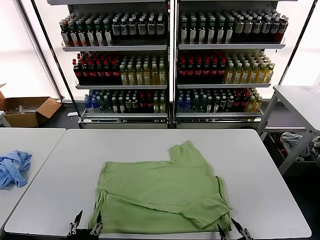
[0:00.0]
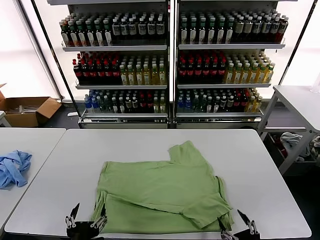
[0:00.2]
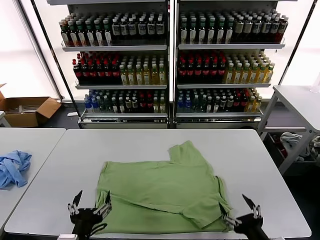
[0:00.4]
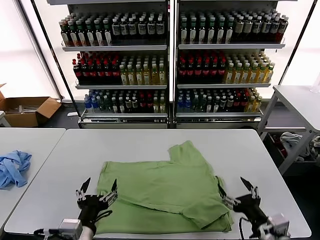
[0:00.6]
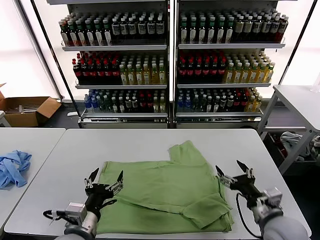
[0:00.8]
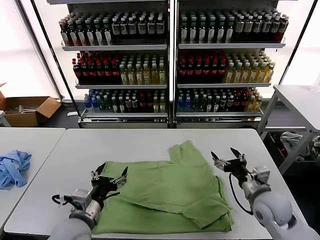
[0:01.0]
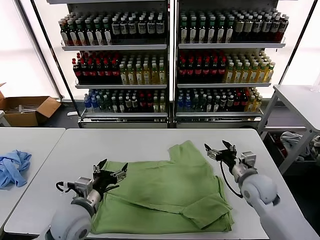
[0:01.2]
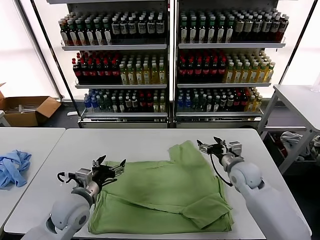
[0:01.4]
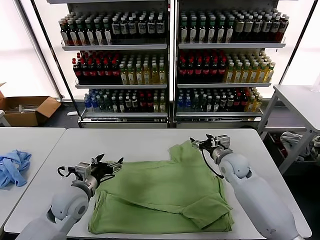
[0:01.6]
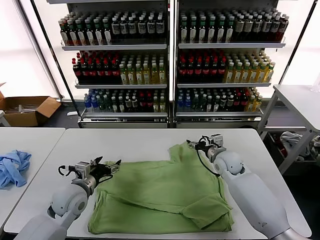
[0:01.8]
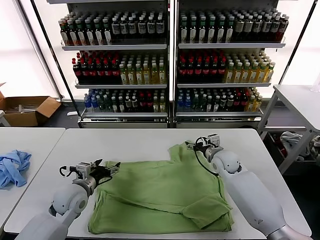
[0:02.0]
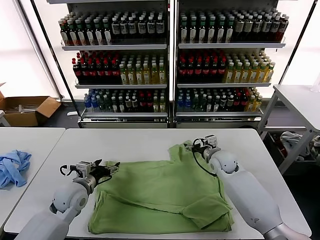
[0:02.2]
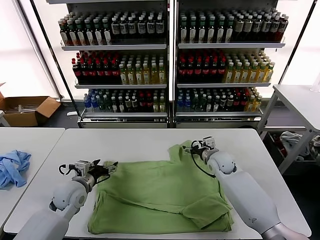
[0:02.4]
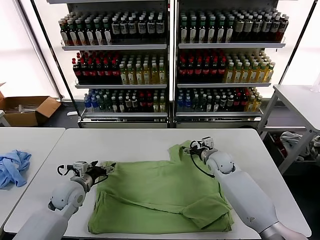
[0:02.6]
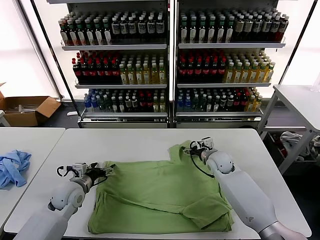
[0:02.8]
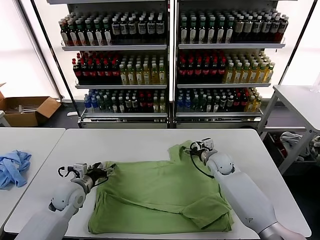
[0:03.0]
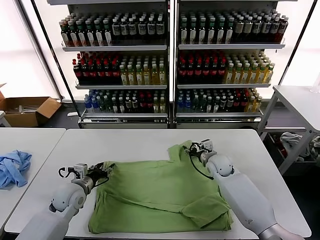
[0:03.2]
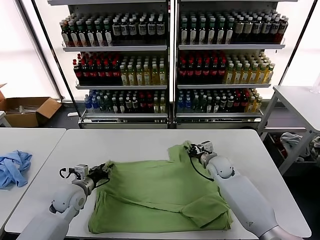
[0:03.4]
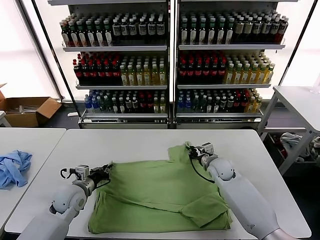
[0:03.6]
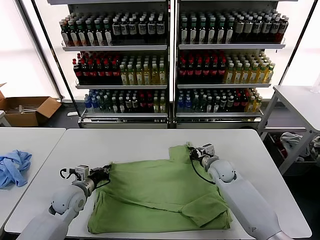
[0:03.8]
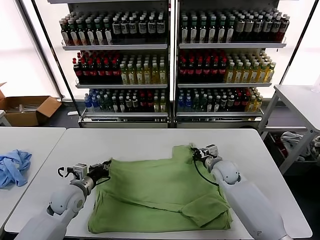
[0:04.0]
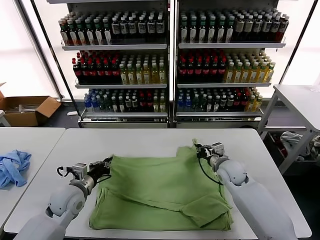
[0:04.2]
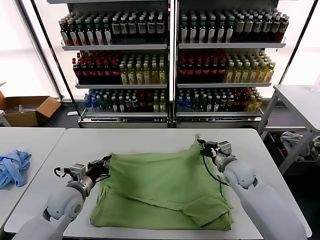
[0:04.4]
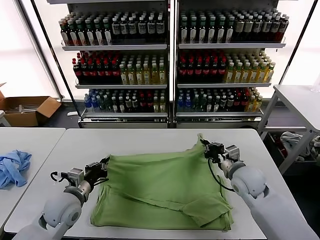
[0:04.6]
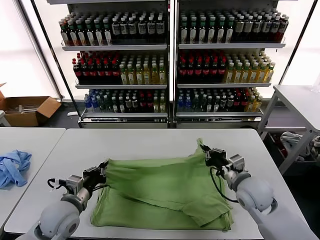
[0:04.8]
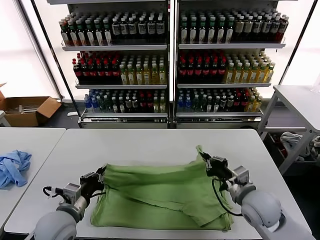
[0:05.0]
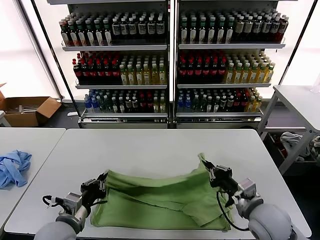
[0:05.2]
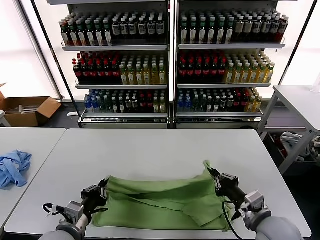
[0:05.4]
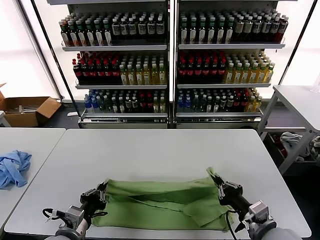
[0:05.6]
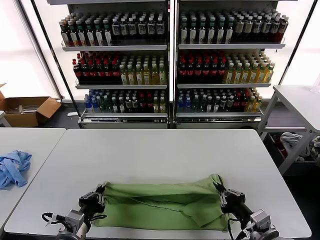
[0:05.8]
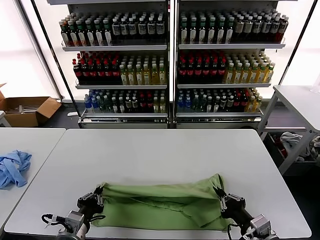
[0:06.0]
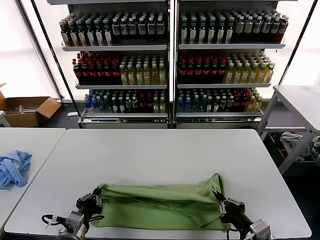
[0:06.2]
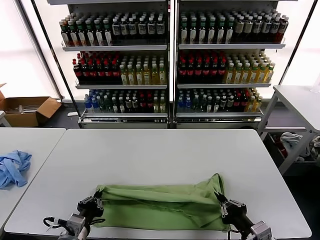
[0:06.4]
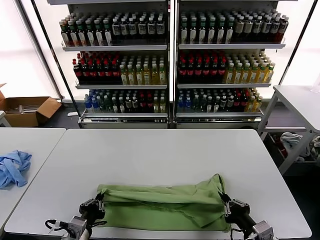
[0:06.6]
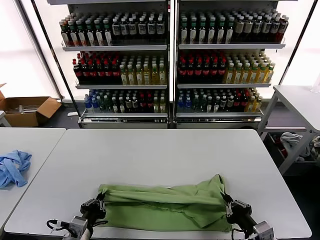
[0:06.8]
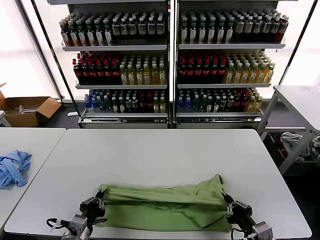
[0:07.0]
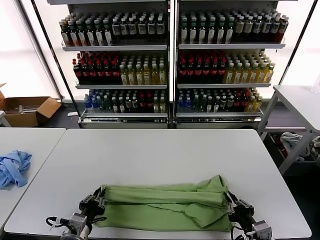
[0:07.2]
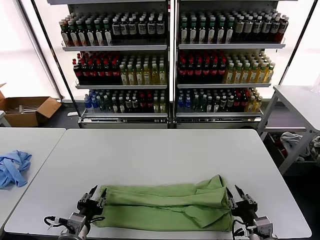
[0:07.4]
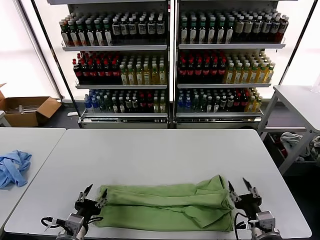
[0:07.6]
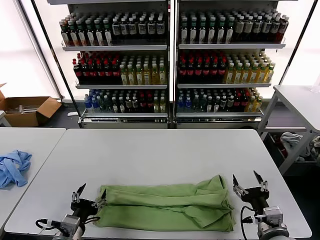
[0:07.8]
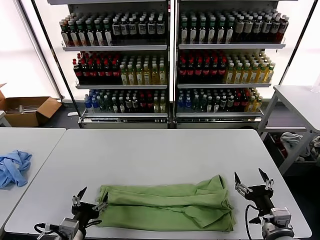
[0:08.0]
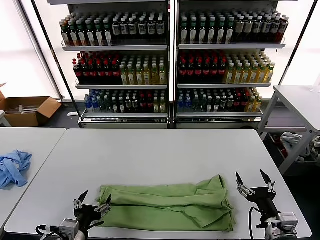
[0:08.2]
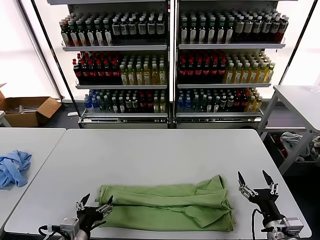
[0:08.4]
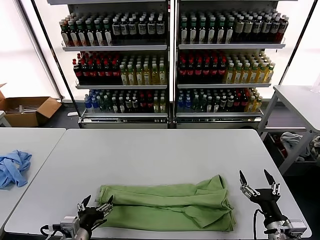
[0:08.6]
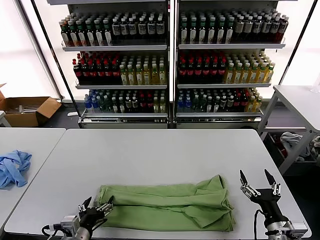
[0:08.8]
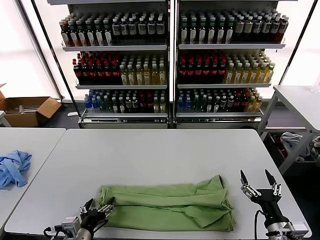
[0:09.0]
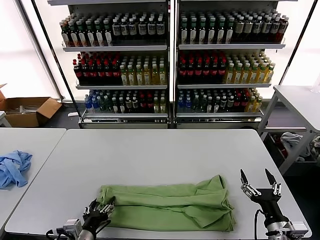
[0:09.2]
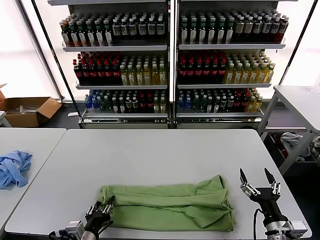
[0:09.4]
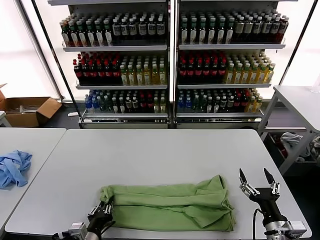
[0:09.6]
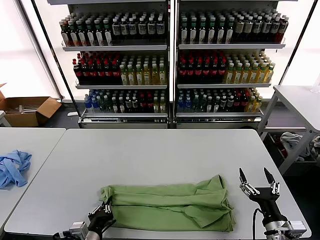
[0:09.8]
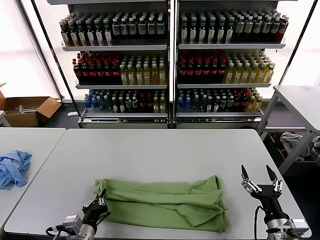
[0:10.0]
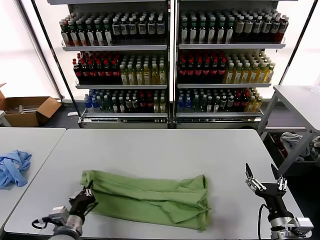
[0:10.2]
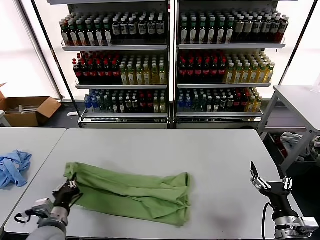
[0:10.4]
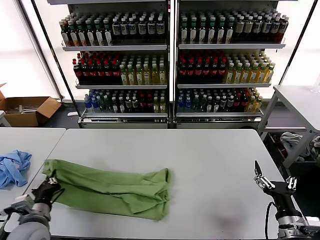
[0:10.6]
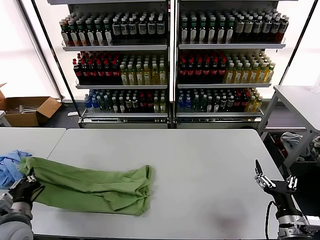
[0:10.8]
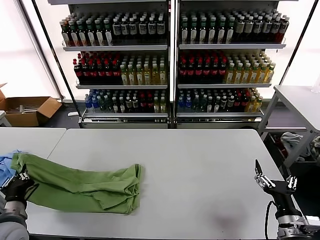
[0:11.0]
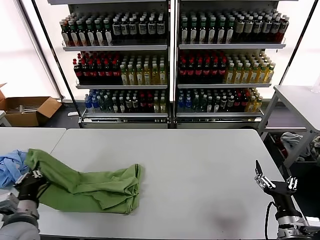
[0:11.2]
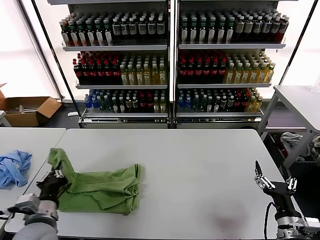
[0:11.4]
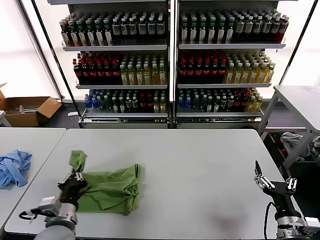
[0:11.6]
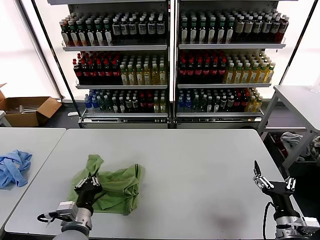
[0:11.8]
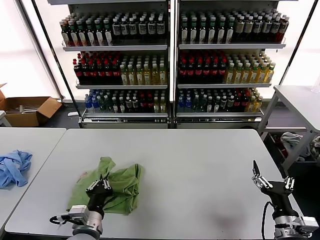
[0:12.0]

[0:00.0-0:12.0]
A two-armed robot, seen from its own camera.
Task of the whole recording: fold and organize the clothes.
Step, 0:00.2 to 0:03.6: use both grippers simultaneously to clamp the upper edge of the clothing fabric.
Step, 0:03.8 to 0:07.2: use both grippers to drag the upper edge of the fabric backward and fold it over the lower edge.
Step, 0:07.6 to 0:09.8: use the left gripper to clamp the left edge of the fabric.
0:00.0 to 0:01.6: The left gripper is displaced forward by some 25 cm, while the right gripper goes some 40 cm forward.
0:01.6 to 0:03.0: The right gripper shifts by about 5 cm. The left gripper goes about 5 cm downward.
0:03.0 to 0:04.4: The left gripper ends up some 5 cm from where it was, and closes its fingers. The right gripper goes approximately 10 cm backward and upward, and closes.
0:04.4 to 0:06.0: The right gripper travels backward by roughly 25 cm, while the left gripper heads backward, covering roughly 15 cm.
0:06.0 to 0:07.6: The left gripper opens its fingers; the right gripper opens.
0:09.0 to 0:10.4: The left gripper heads to the left, covering approximately 5 cm, and closes.
0:10.4 to 0:12.0: The left gripper is displaced to the right by about 10 cm.

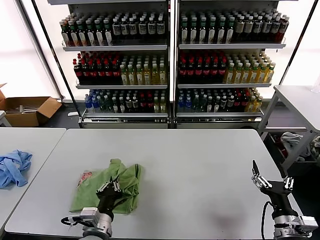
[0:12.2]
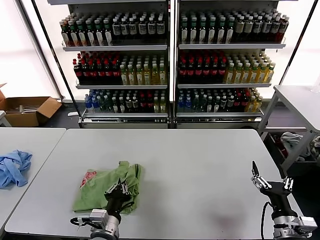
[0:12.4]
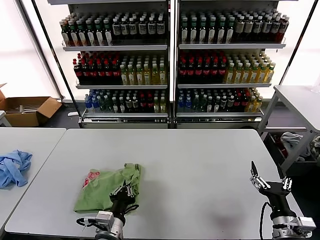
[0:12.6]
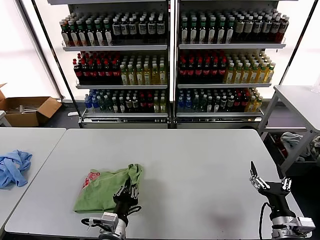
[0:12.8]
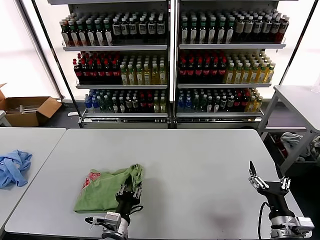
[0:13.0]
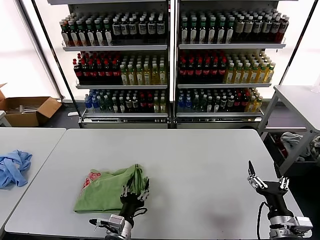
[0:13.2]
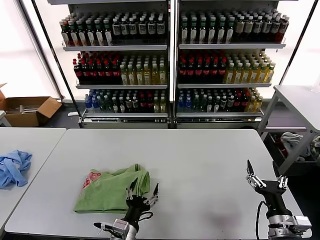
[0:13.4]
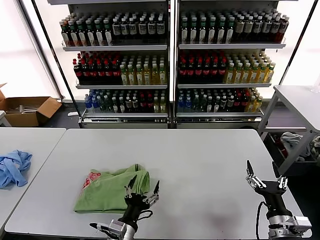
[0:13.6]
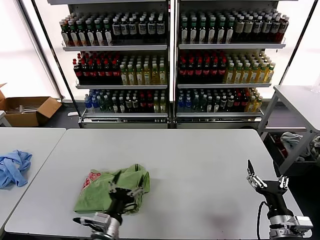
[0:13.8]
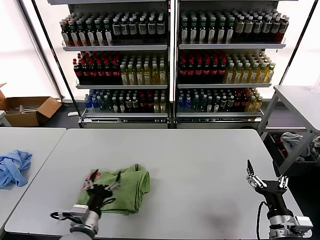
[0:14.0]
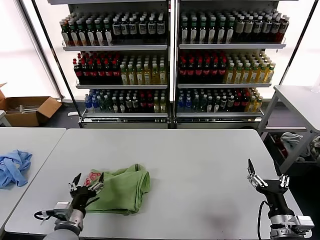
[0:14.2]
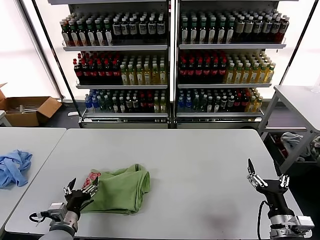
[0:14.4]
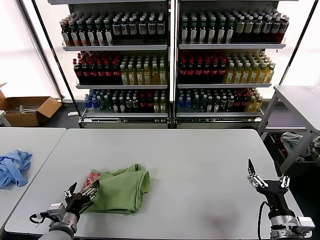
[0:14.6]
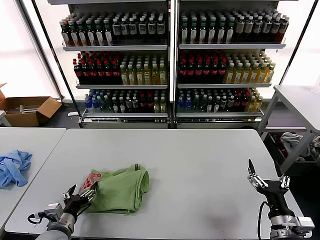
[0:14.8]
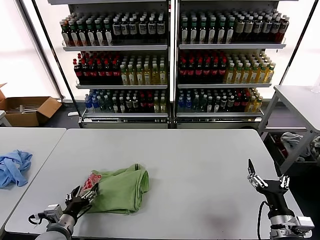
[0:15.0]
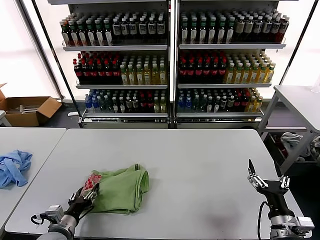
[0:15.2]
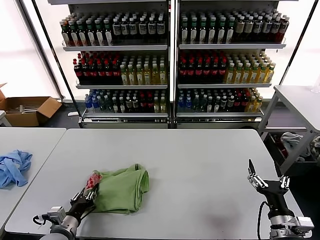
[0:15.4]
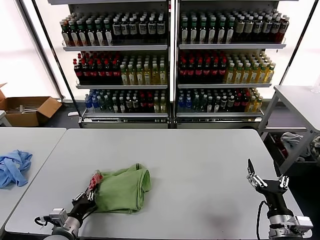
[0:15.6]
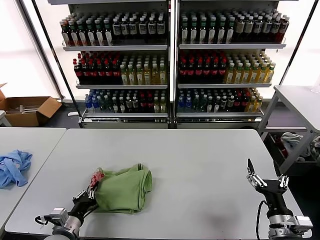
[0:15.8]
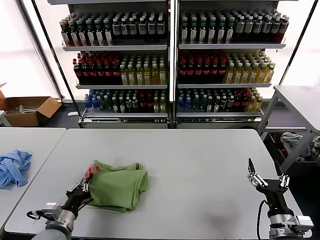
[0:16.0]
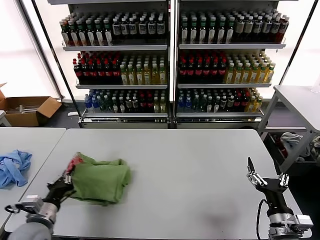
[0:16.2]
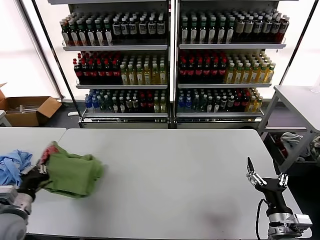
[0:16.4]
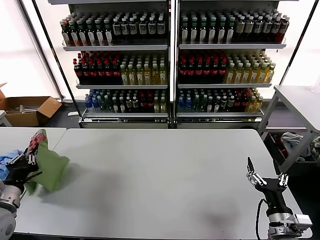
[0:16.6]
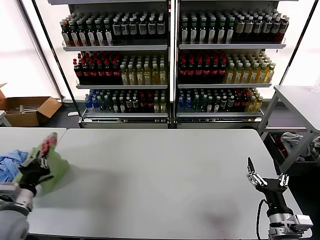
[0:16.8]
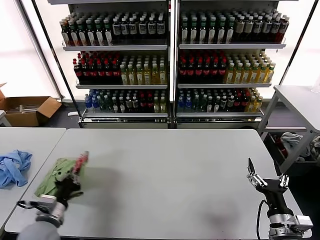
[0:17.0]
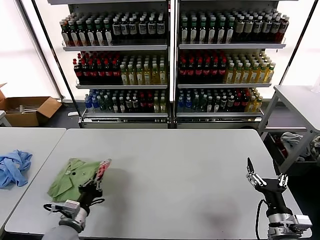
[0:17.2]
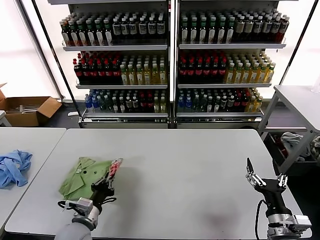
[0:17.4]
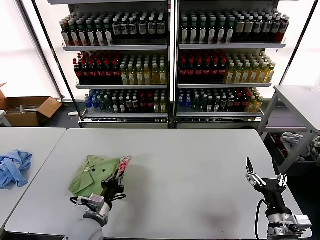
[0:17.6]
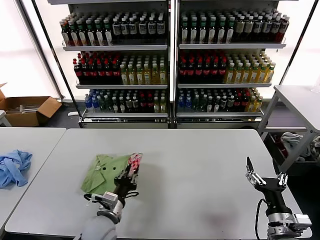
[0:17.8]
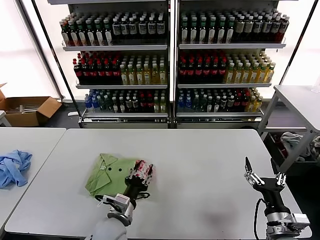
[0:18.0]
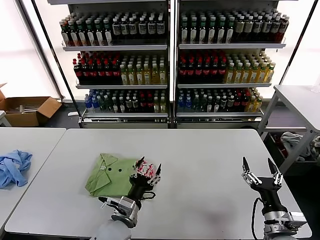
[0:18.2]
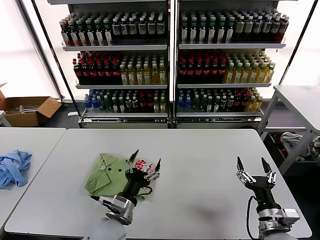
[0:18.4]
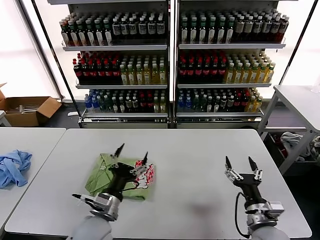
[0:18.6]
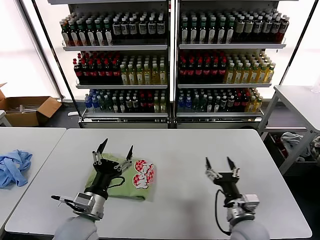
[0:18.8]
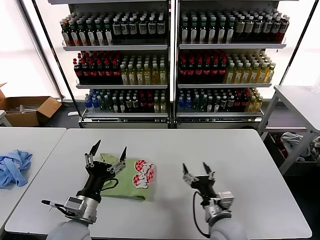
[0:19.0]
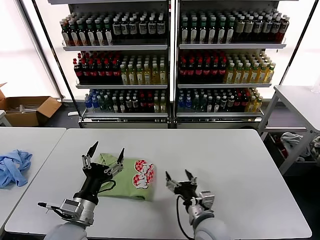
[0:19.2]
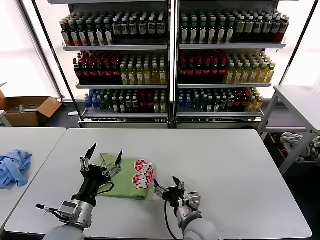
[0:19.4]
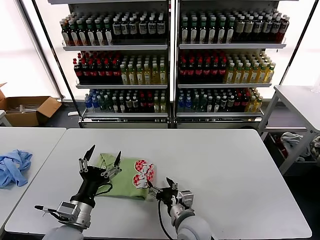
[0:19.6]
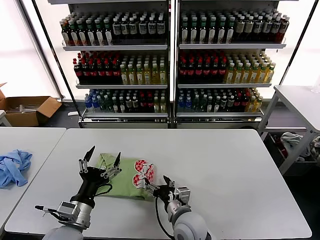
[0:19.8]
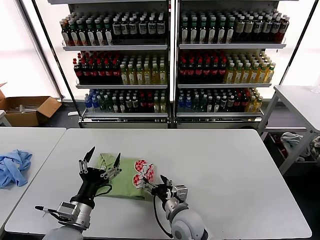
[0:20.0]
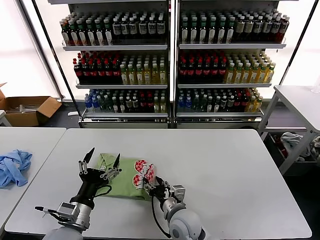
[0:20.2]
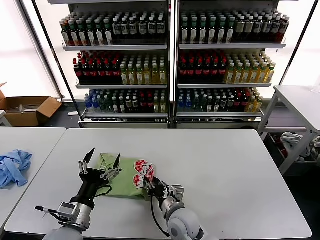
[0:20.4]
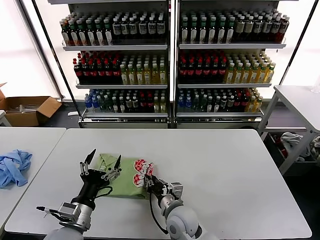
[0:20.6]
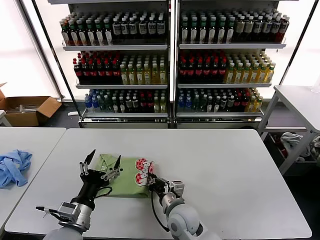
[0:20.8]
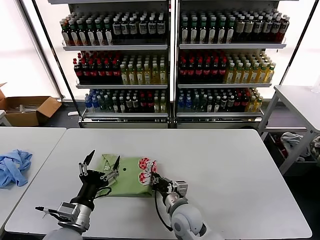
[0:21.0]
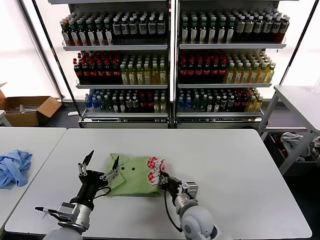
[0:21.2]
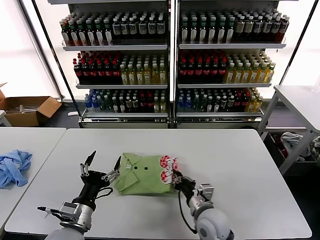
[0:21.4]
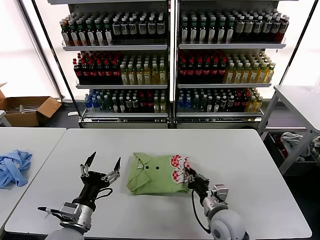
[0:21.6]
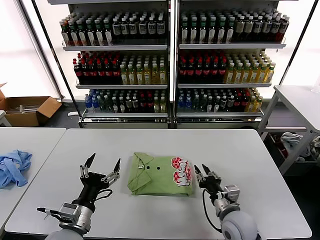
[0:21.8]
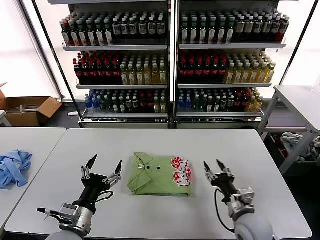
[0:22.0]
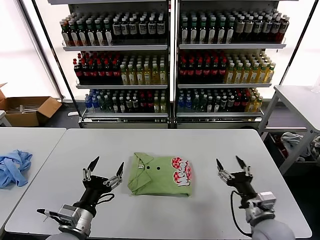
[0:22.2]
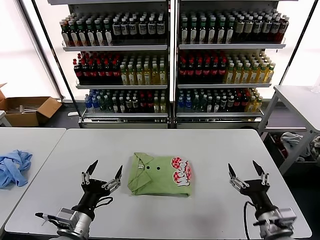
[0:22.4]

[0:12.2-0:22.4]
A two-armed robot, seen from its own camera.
Task of the whole recording: fold and organize the clothes.
Step, 0:13.4 to 0:18.0: Flip the folded clothes over with left gripper.
Step, 0:18.2 to 0:21.6: Drag the clothes to the center of the table.
0:12.2 to 0:13.6: The left gripper ends up roughly 5 cm from where it was, and opens up.
0:13.6 to 0:15.2: The left gripper travels to the left by approximately 20 cm.
0:15.2 to 0:16.6: The left gripper moves upward and to the left, some 15 cm, and closes up.
0:16.6 to 0:18.0: The left gripper heads to the right, covering approximately 25 cm, and opens.
0:18.0 to 0:19.4: The left gripper moves to the left and upward, approximately 10 cm, and opens up. Meanwhile the right gripper heads to the left, covering about 20 cm.
0:19.4 to 0:21.0: The right gripper travels forward by some 5 cm, and closes its fingers.
0:21.0 to 0:22.4: The right gripper shifts approximately 25 cm to the right and backward, and opens.
